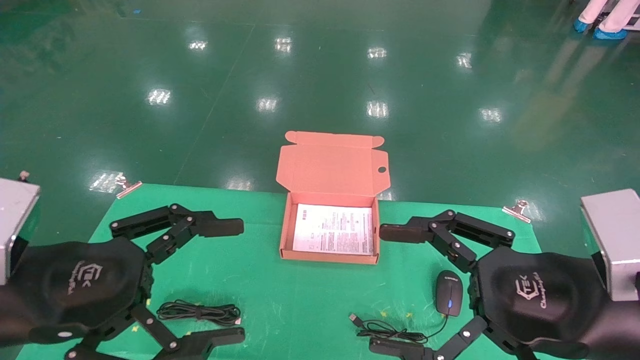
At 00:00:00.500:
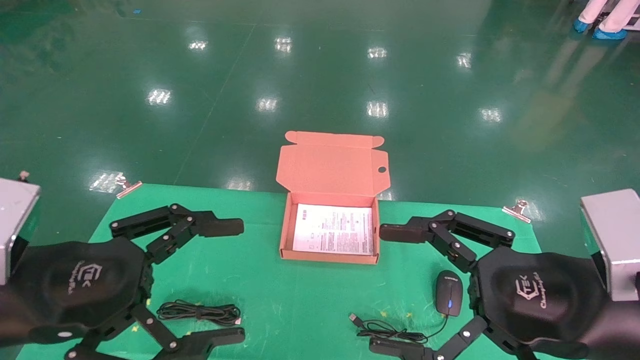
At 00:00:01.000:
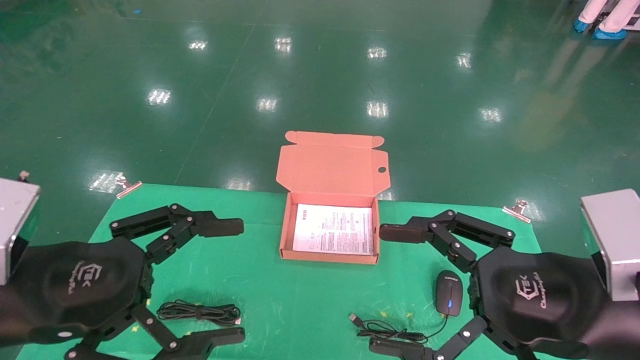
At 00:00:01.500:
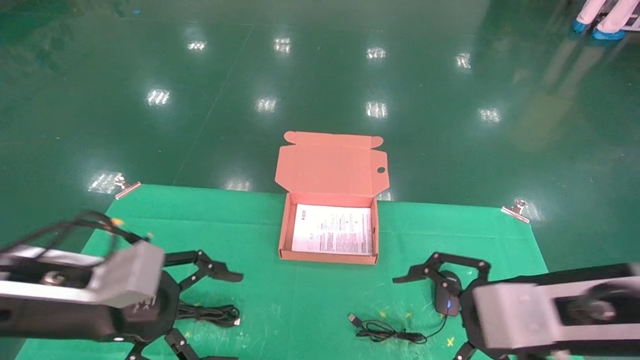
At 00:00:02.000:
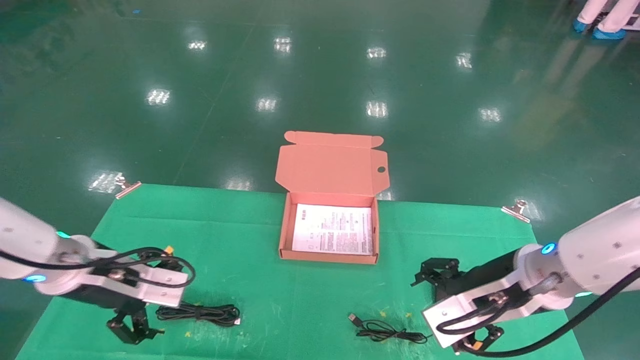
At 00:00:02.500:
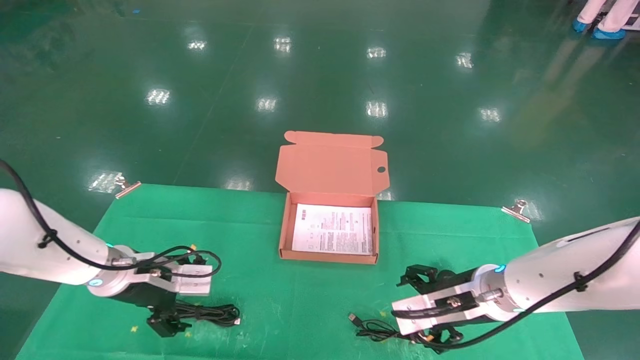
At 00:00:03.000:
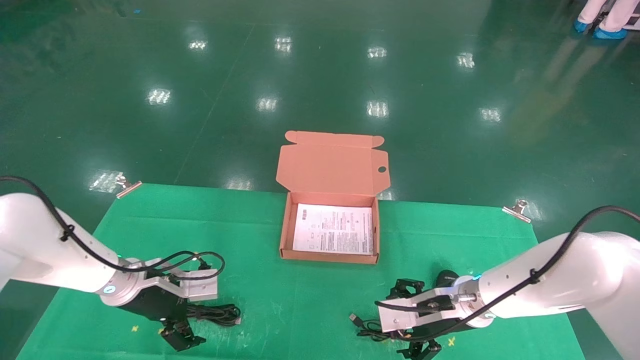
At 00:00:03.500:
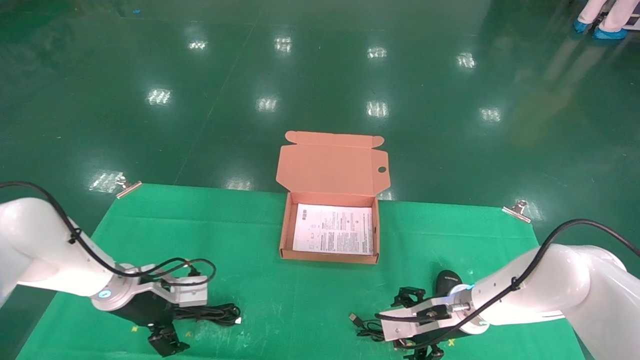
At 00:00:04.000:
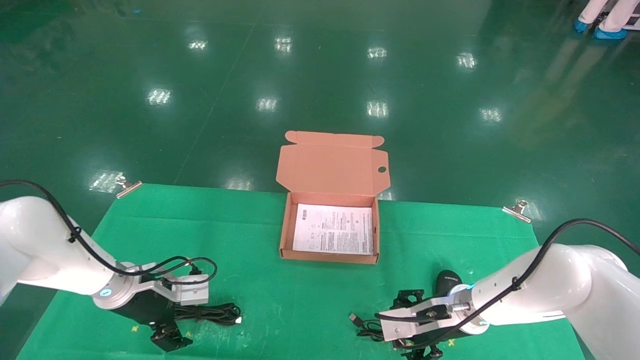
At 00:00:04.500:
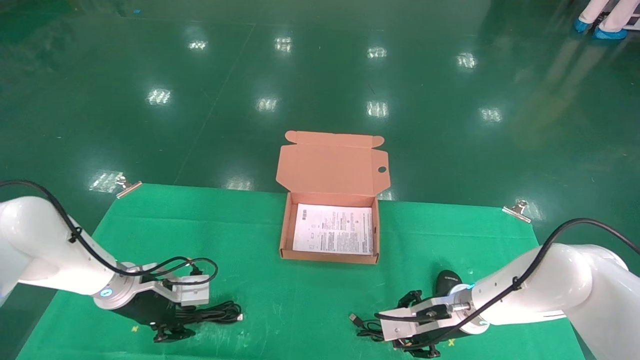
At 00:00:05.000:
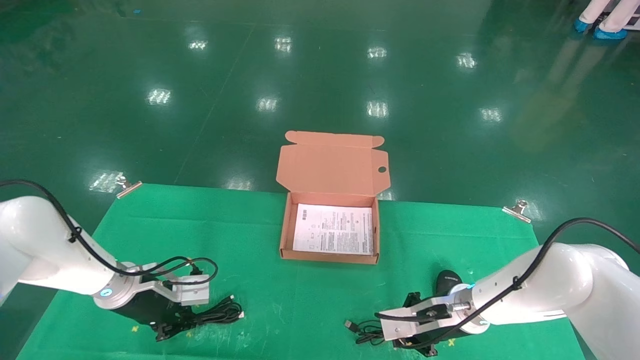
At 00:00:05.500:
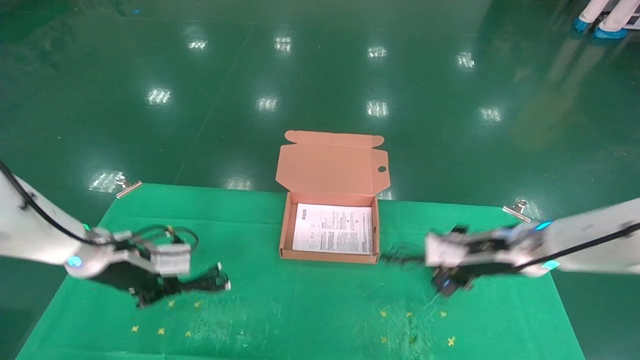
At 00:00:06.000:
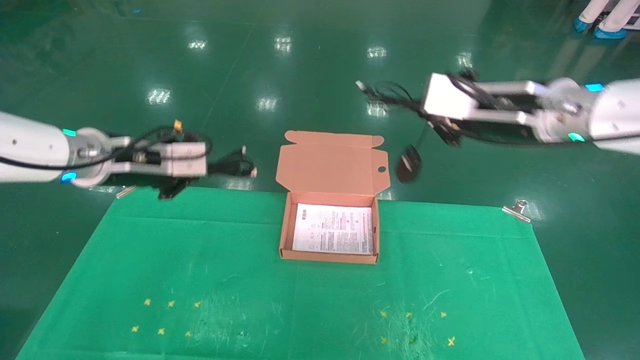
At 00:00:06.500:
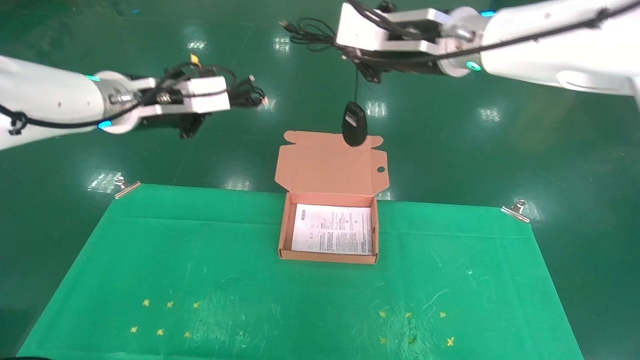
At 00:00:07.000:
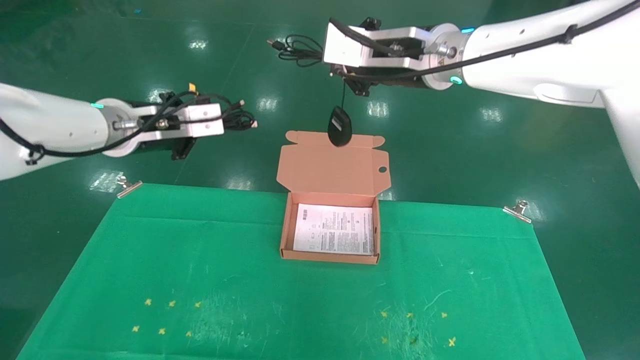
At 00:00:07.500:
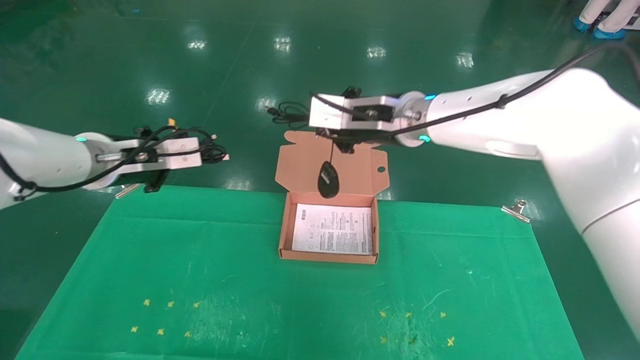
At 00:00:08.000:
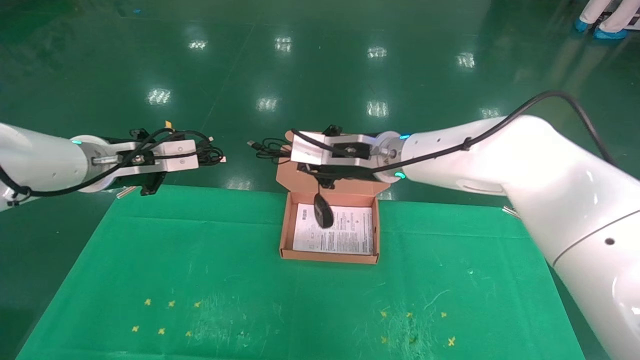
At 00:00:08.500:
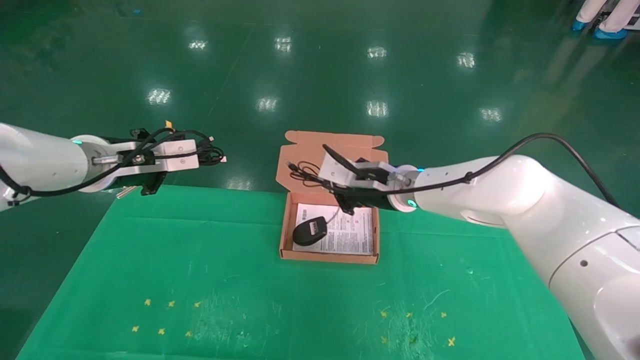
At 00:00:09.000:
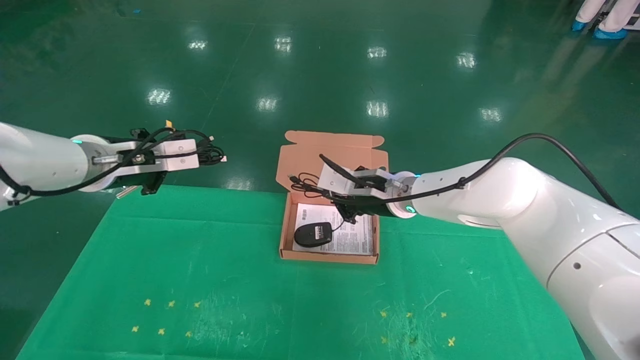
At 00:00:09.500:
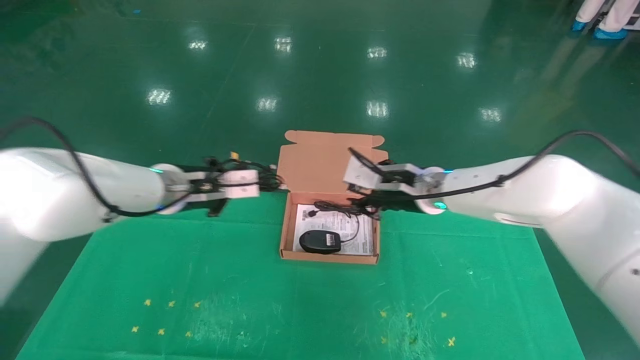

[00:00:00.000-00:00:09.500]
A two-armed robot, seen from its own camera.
Task of the whole recording: grasp data cable left put into box grasp mouse right put into box.
Step, 00:00:01.500 to 00:00:05.000: Grab and pick up both the mouse and power cord from the accessory packaging area at the same time.
00:00:00.000 to 00:00:02.000: Both grippers travel together forward and downward, about 15 cm.
00:00:02.000 to 00:00:04.000: The left gripper heads forward and downward, covering about 15 cm; the right gripper travels downward and forward by roughly 15 cm.
00:00:04.000 to 00:00:05.500: The right gripper goes about 15 cm upward and to the right, and closes up; the left gripper heads upward, covering about 10 cm, and closes.
00:00:05.500 to 00:00:07.500: The left gripper travels upward by about 15 cm. The right gripper heads to the left and upward, covering some 25 cm.
00:00:07.500 to 00:00:09.500: The right gripper is displaced downward and to the right by about 10 cm. The left gripper travels to the right and downward by some 10 cm.

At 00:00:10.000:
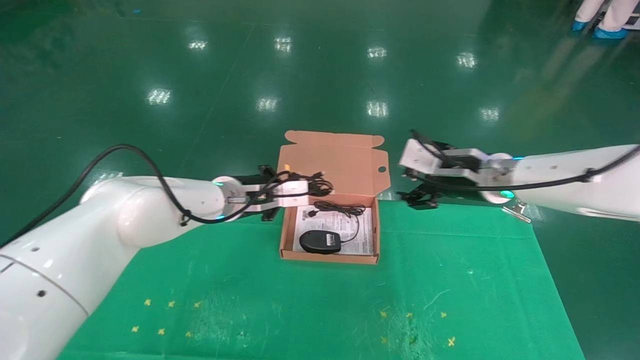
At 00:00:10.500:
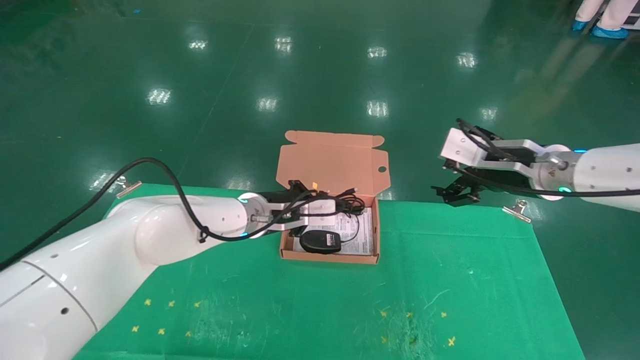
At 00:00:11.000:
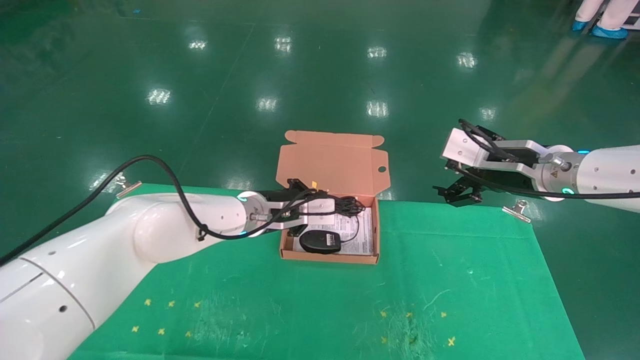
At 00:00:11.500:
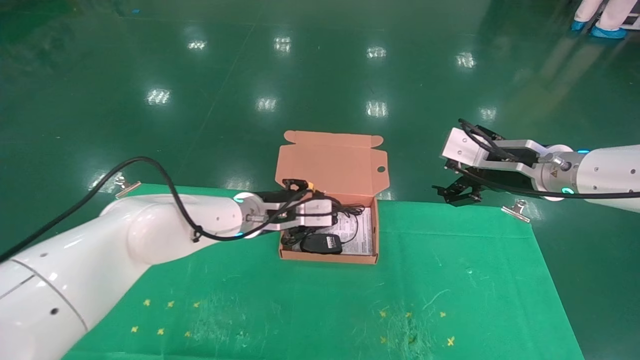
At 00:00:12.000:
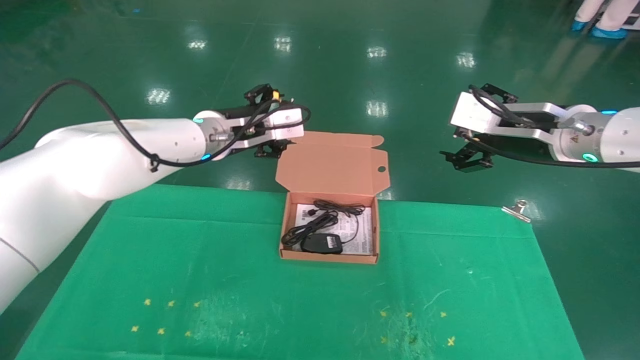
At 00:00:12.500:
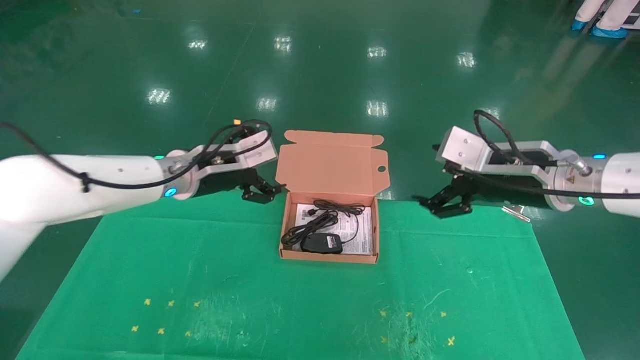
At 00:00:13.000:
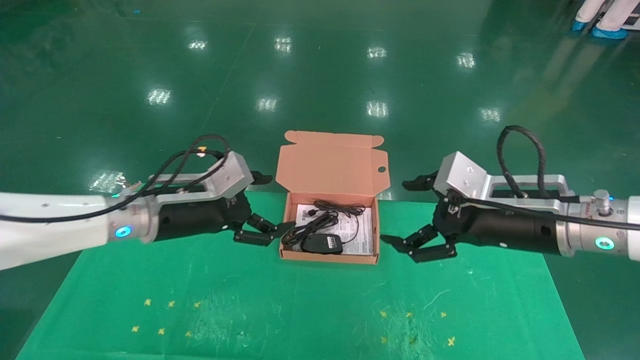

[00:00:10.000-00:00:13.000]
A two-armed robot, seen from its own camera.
Task of the whole recording: grasp data cable left put into box grasp mouse right put into box.
00:00:10.000 to 00:00:11.500: The left gripper opens its fingers, while the right gripper shifts by roughly 10 cm.
00:00:11.500 to 00:00:13.000: The left gripper is displaced to the left and backward by roughly 15 cm, and opens its fingers, while the right gripper moves backward and downward, some 10 cm.
